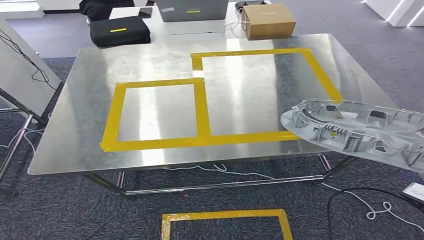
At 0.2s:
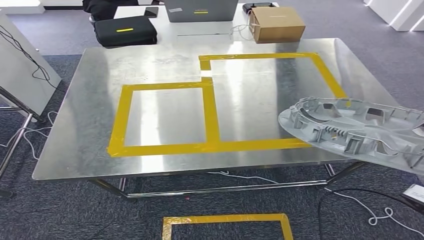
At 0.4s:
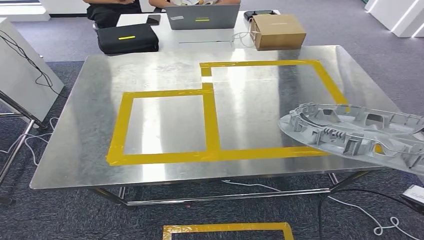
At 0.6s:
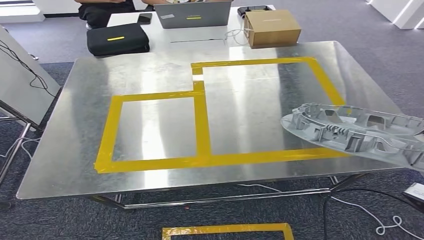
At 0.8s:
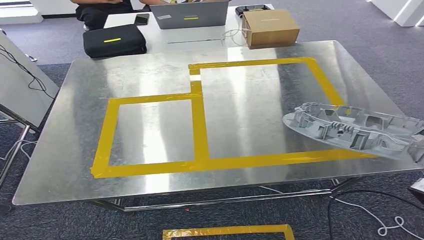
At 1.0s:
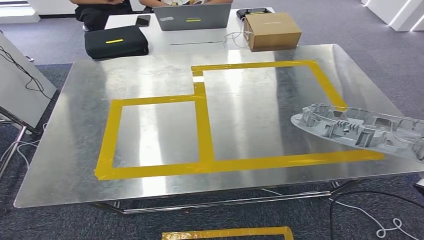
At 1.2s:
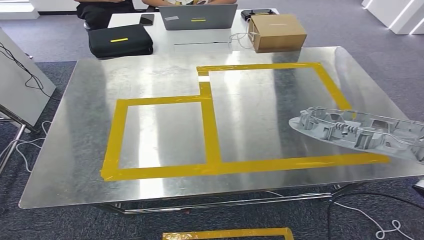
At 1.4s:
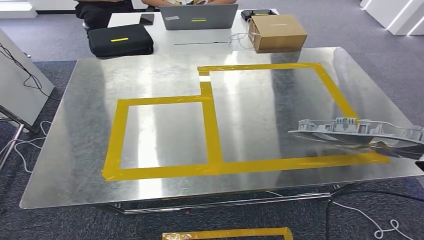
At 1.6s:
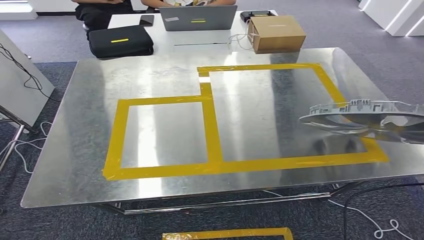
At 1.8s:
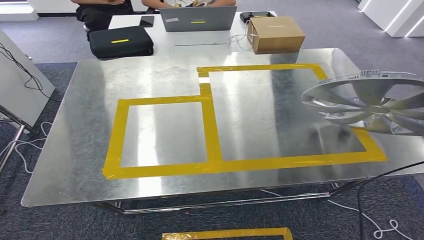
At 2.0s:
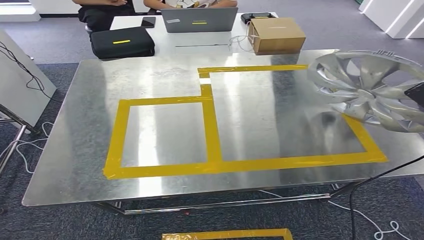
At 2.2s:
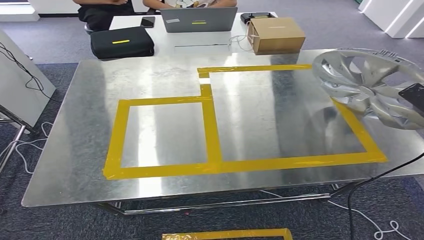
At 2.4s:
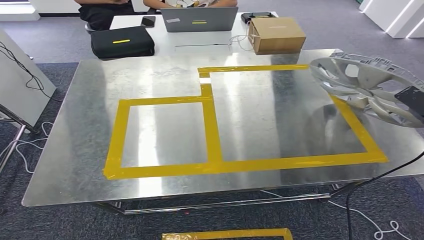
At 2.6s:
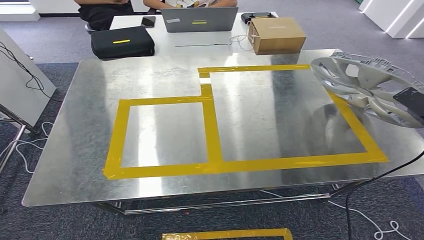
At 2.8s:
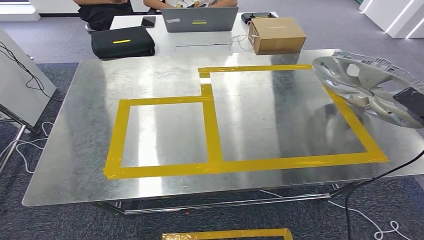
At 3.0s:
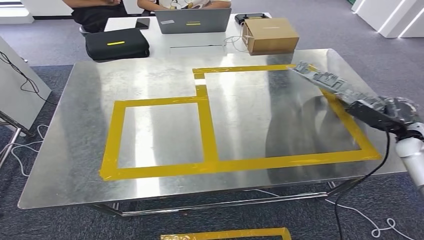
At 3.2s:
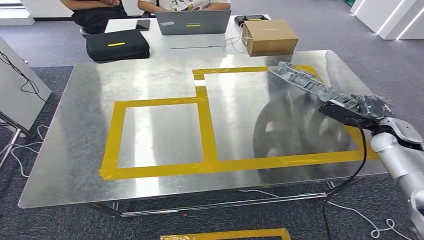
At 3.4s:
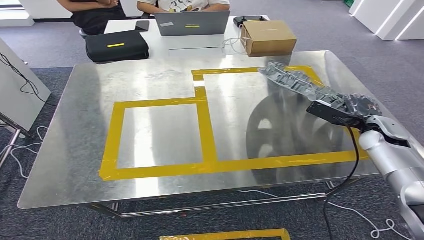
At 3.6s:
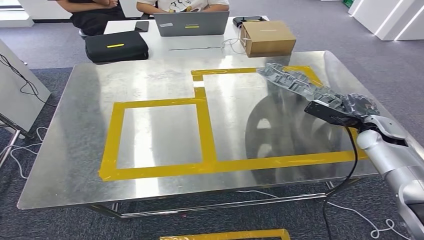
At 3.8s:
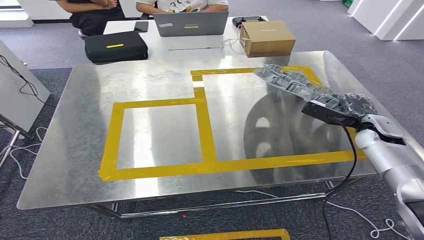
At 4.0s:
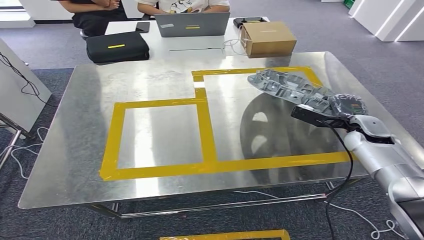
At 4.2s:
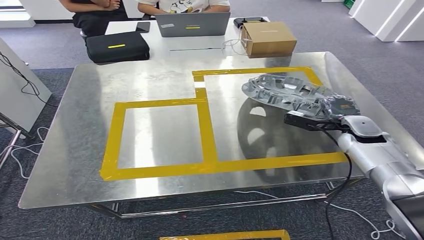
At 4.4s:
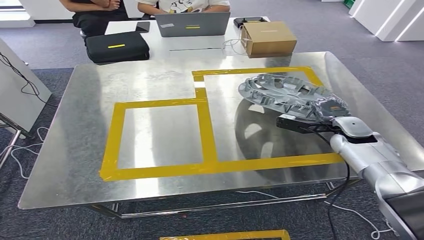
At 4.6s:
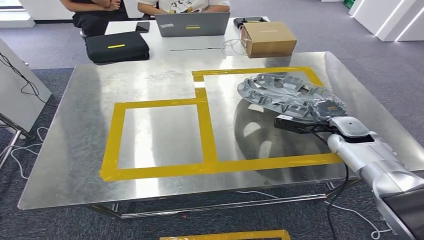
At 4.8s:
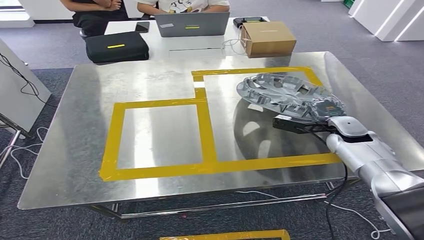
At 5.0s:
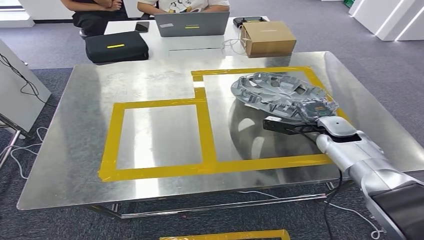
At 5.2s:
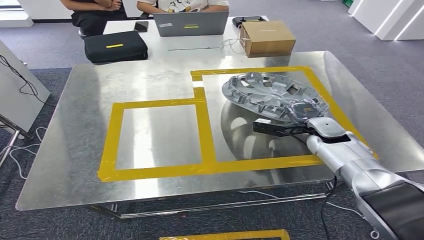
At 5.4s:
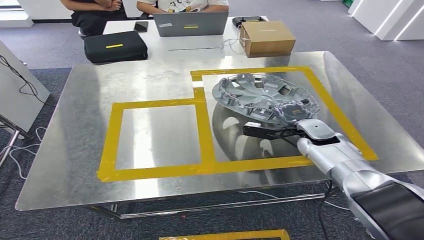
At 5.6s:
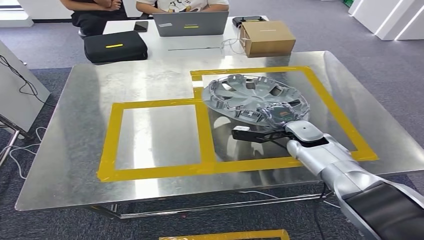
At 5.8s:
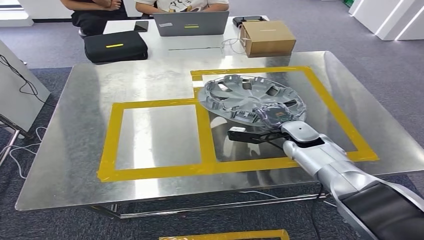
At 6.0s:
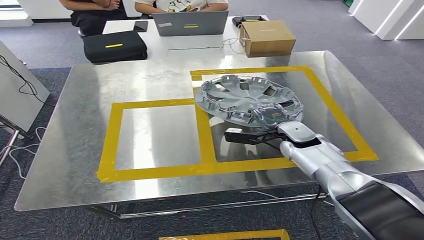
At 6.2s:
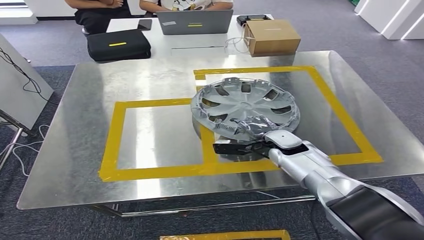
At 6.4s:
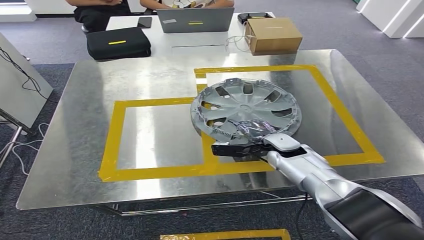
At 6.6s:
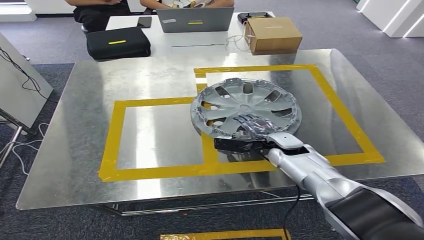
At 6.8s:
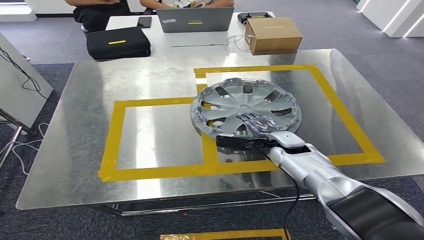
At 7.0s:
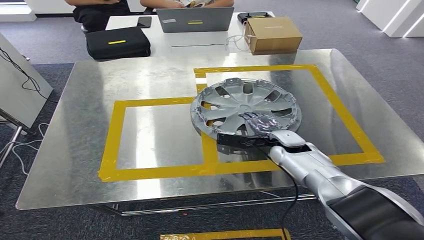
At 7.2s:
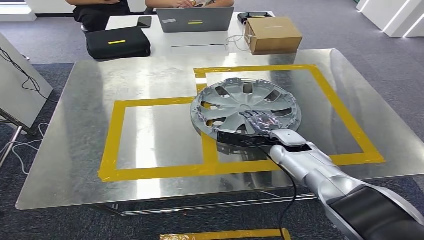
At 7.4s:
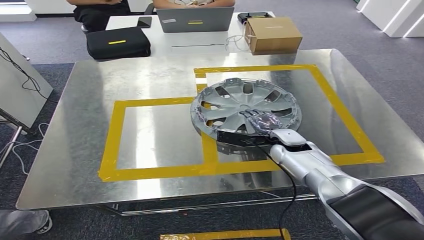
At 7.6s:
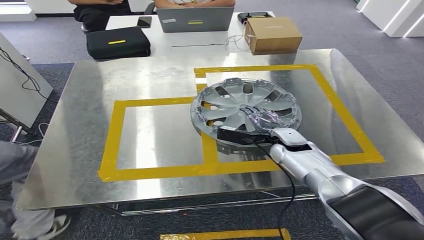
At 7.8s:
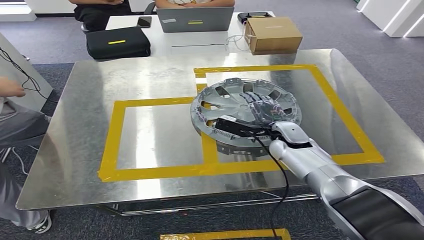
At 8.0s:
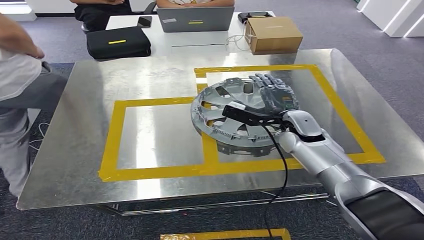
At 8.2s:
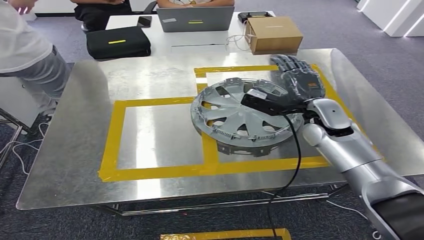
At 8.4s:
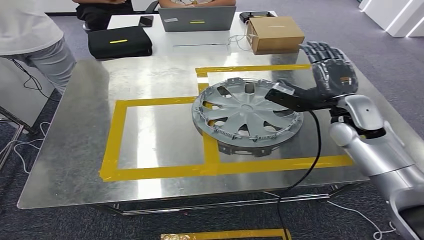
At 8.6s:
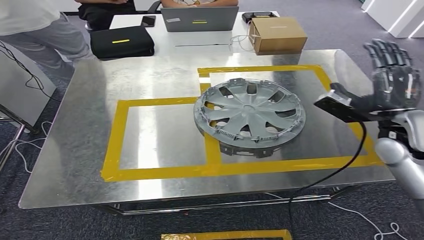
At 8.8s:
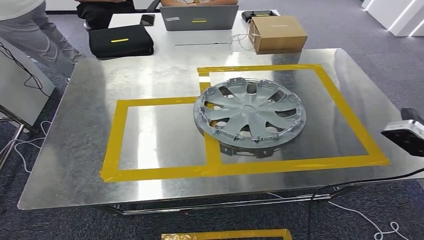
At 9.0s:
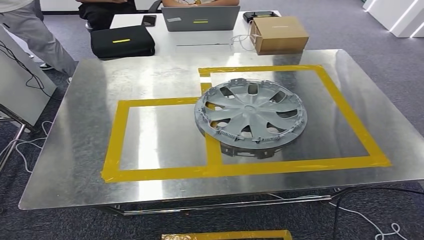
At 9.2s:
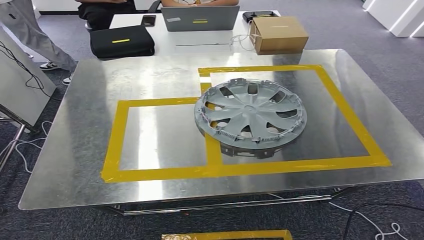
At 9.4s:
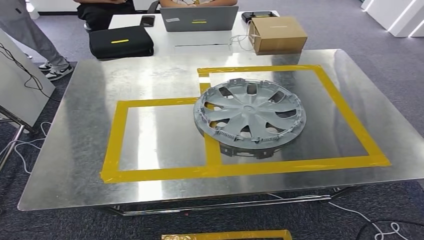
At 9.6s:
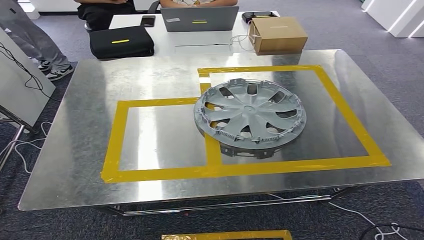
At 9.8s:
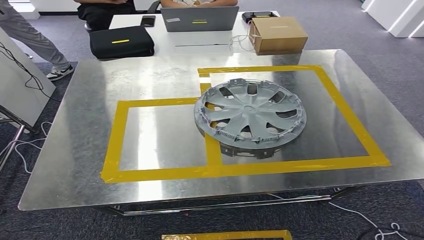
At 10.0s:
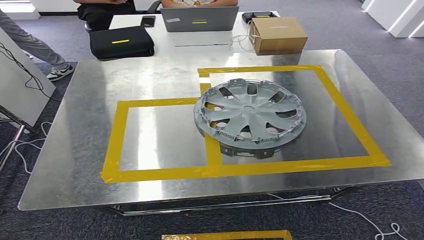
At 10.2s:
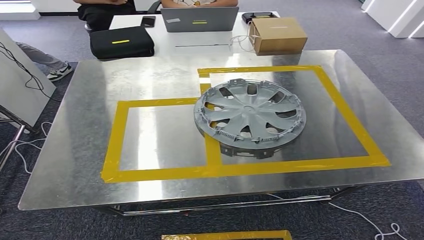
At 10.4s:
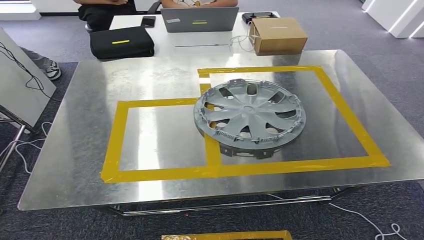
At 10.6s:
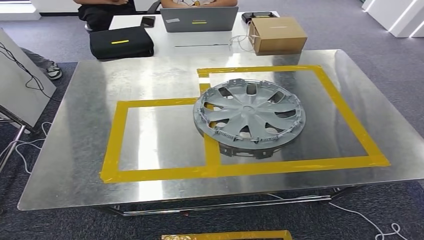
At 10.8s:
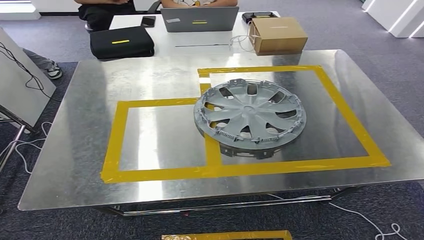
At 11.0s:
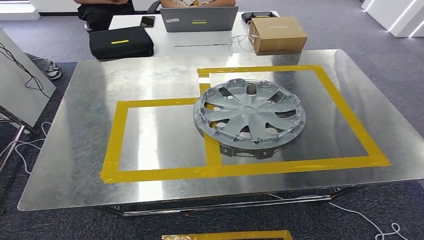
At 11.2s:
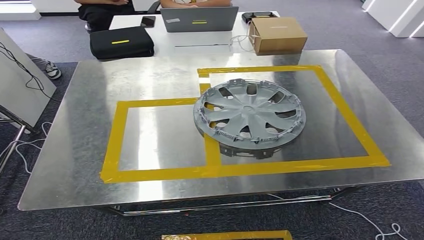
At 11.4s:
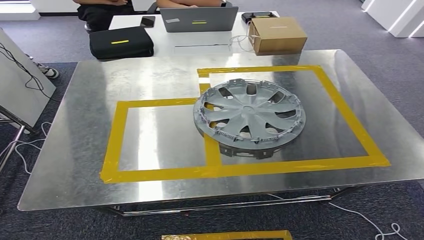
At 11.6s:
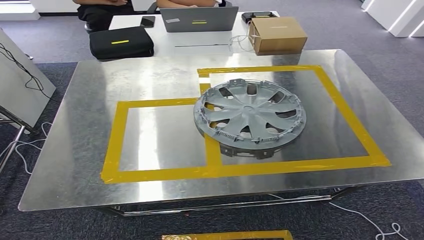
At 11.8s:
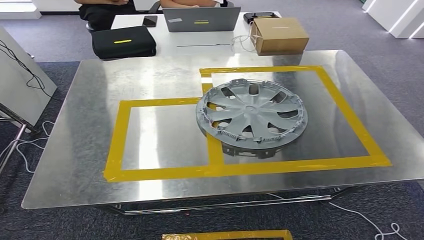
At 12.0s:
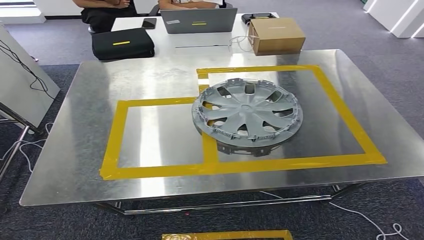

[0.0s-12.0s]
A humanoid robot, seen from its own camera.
Step, 0.0s to 7.6s: Insert the small parts into the corresponding slots on the workbench.
9.0s to 10.4s: The right hand heads downward and backward, covering approximately 40 cm.
10.4s to 12.0s: The right hand is displaced to the left by some 20 cm.

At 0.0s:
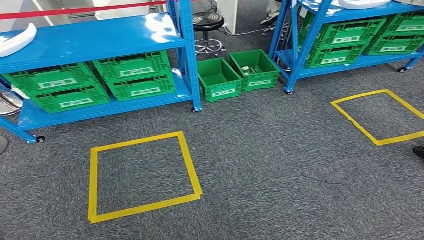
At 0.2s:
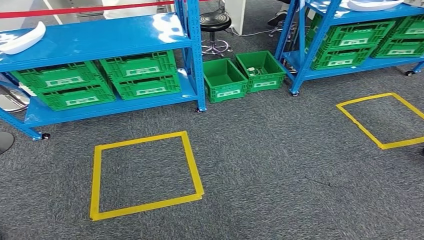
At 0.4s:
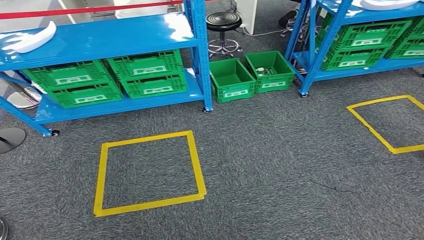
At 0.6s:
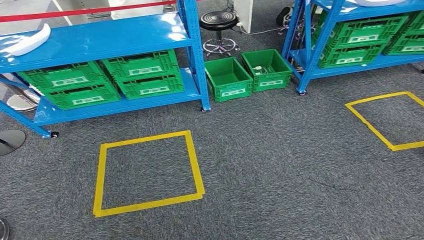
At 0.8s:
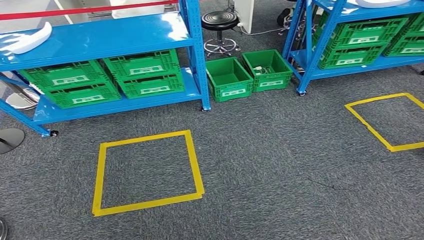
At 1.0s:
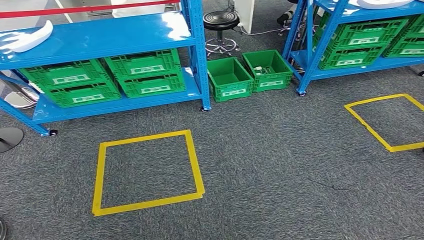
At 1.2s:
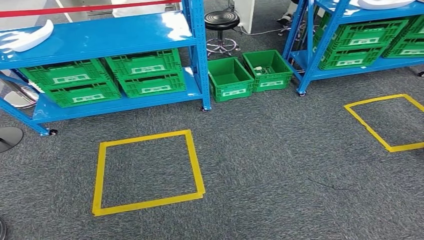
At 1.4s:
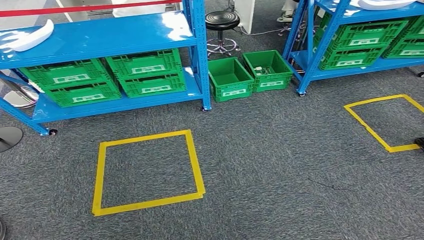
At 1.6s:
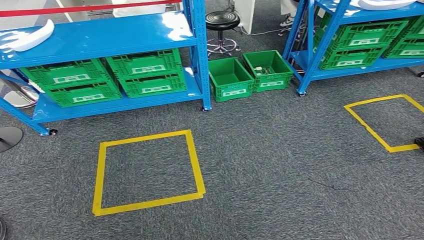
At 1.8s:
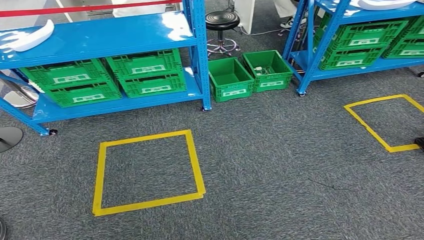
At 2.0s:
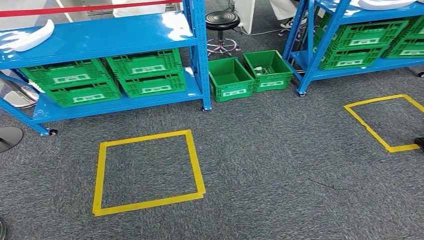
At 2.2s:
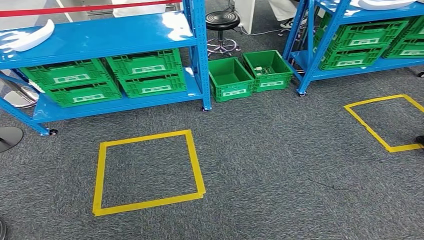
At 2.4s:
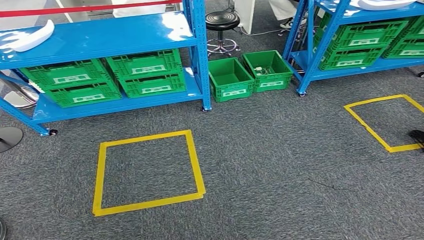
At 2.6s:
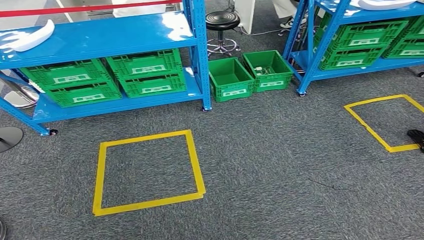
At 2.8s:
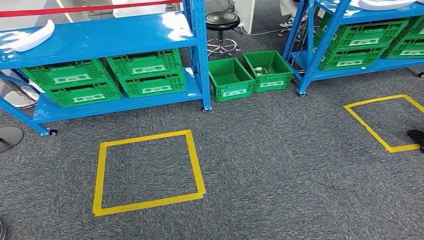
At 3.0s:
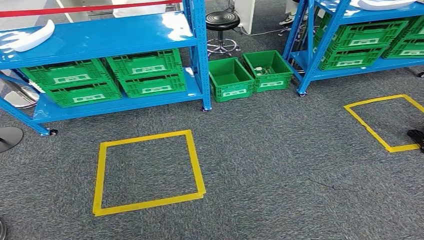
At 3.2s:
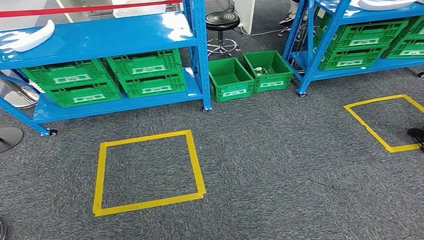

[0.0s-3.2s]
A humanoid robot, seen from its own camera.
Step, 0.0s to 3.2s: Return to the initial position at the workbench.

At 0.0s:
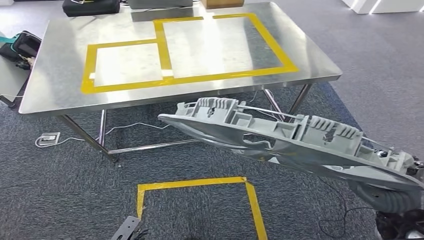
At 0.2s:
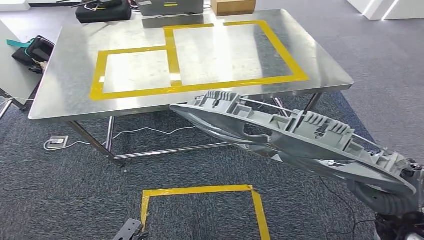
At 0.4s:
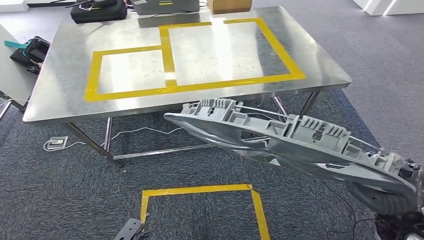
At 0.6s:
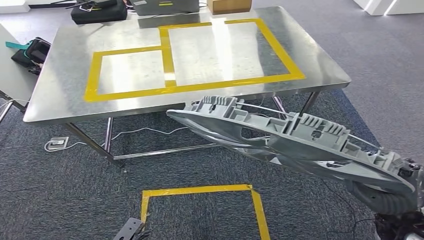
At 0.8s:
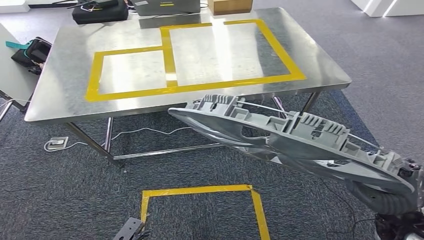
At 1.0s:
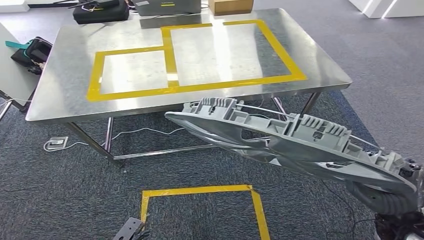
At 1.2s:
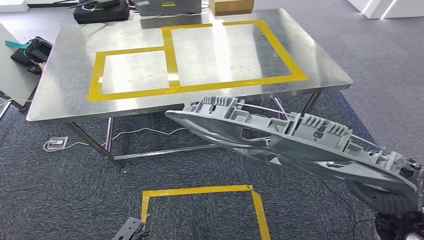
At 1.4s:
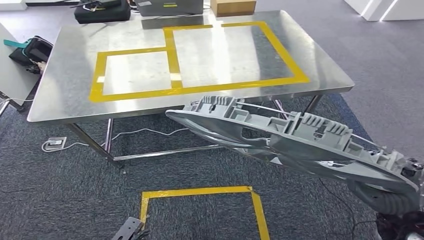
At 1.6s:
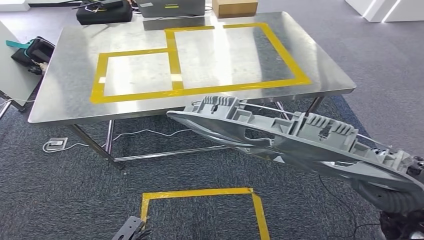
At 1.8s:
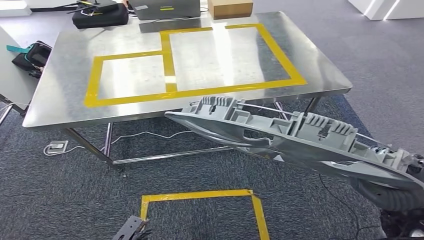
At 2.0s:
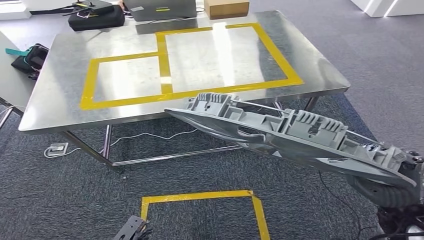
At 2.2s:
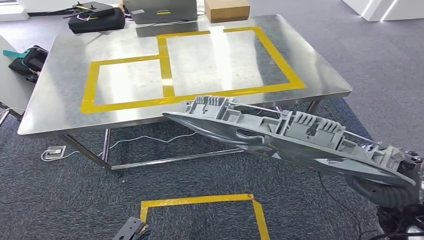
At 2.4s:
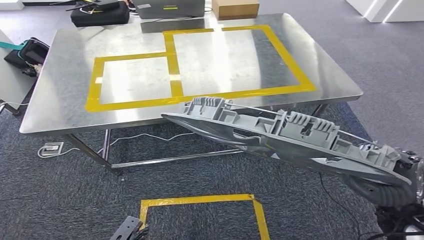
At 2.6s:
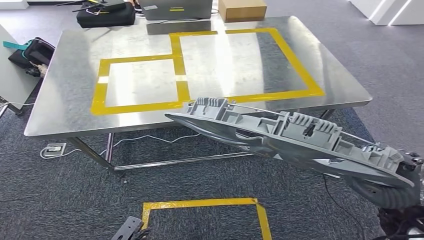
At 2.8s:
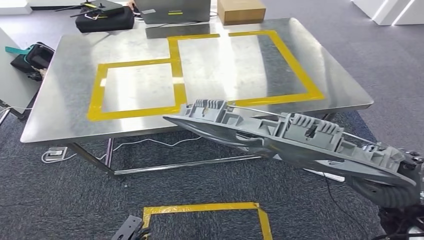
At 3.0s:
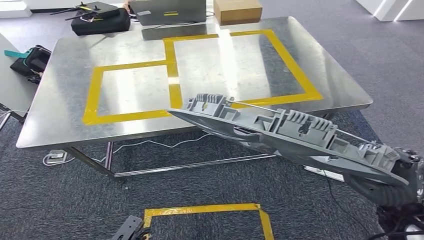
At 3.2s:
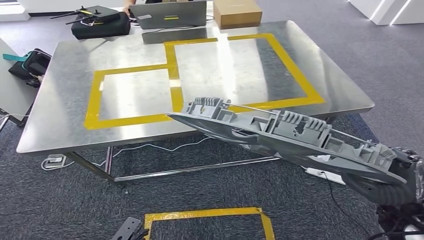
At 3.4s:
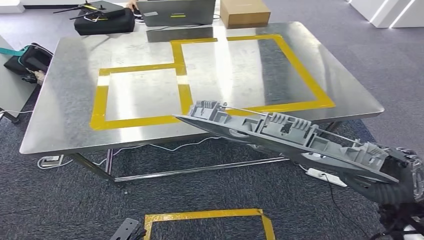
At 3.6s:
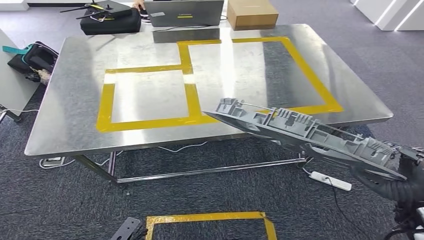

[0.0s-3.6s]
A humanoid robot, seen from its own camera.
Step, 0.0s to 2.4s: Move the small parts to the workbench.
